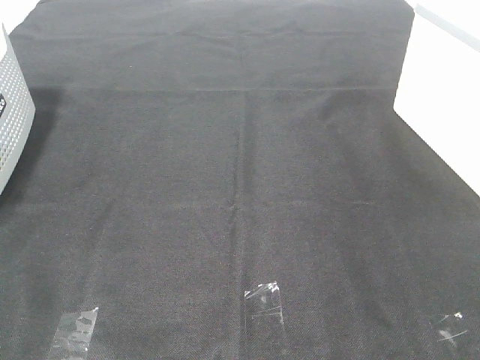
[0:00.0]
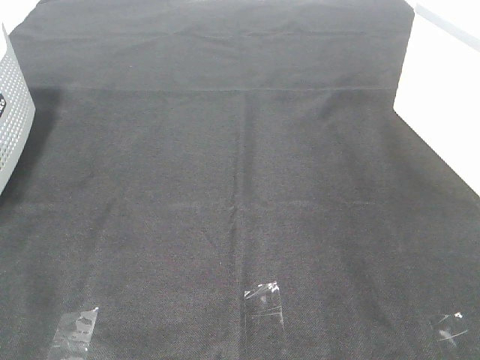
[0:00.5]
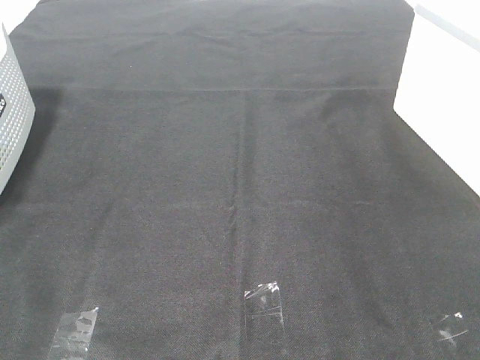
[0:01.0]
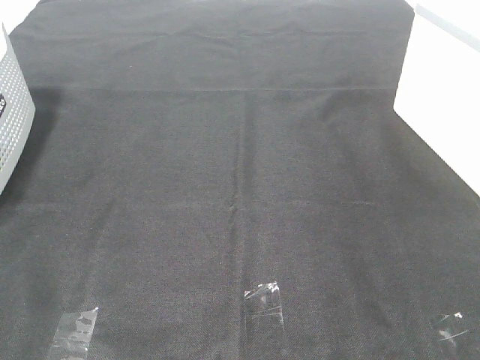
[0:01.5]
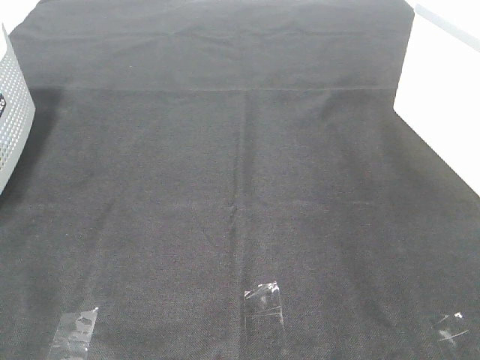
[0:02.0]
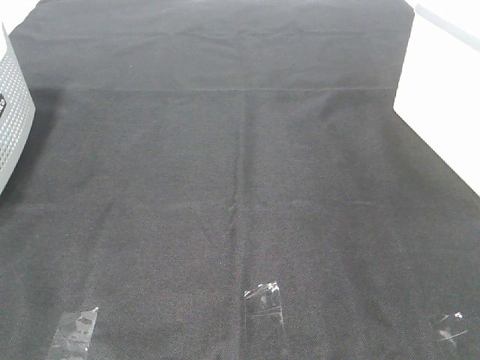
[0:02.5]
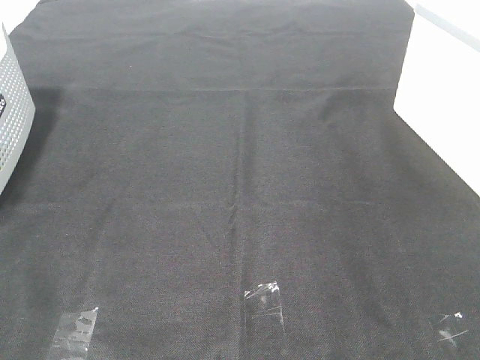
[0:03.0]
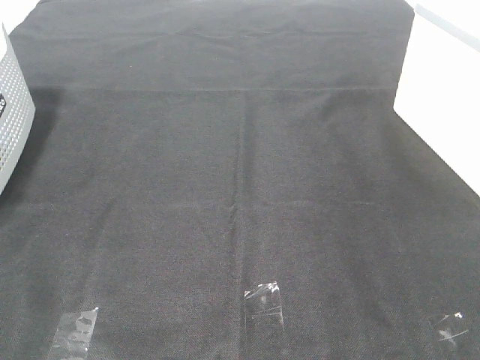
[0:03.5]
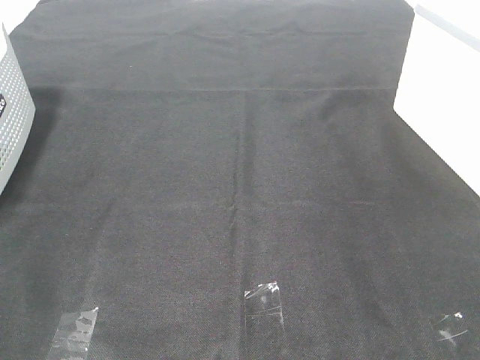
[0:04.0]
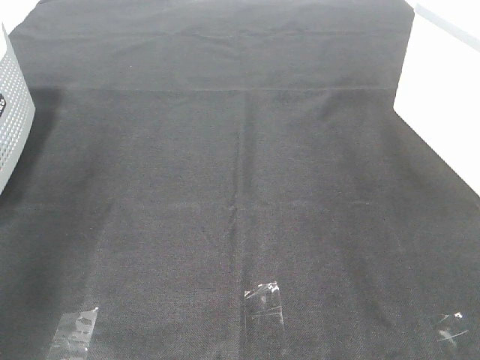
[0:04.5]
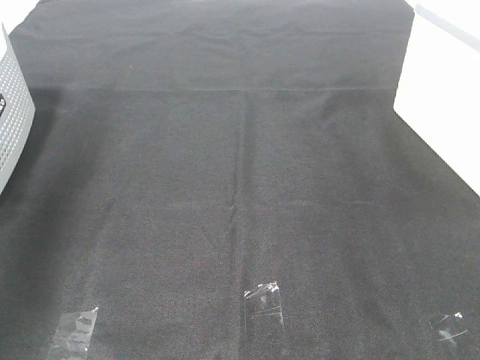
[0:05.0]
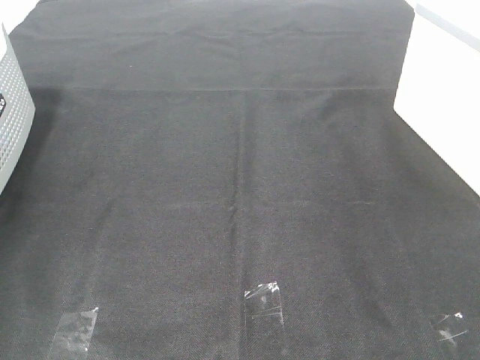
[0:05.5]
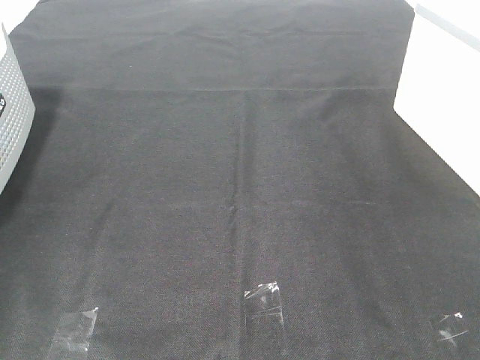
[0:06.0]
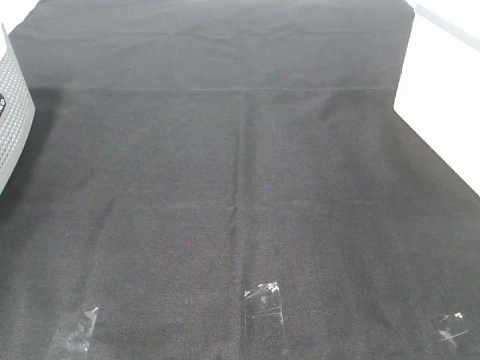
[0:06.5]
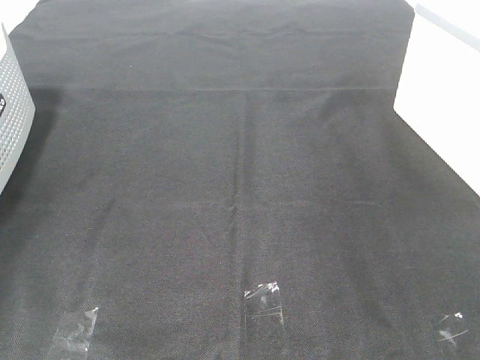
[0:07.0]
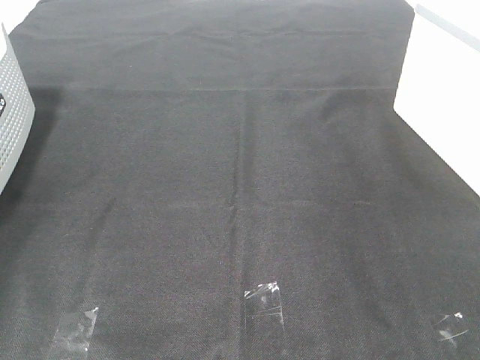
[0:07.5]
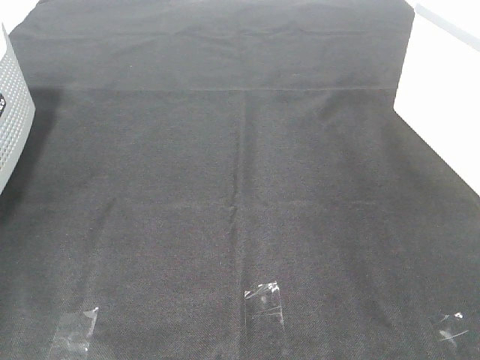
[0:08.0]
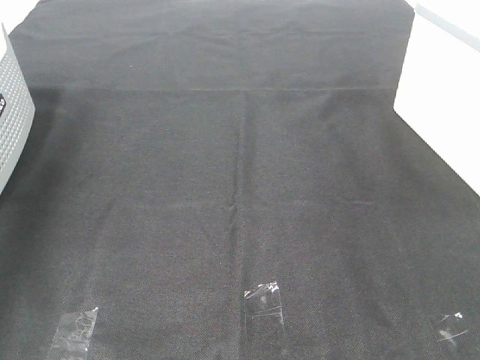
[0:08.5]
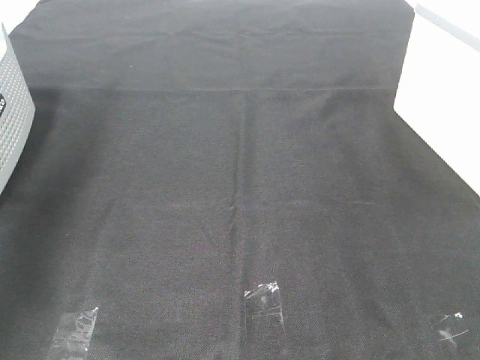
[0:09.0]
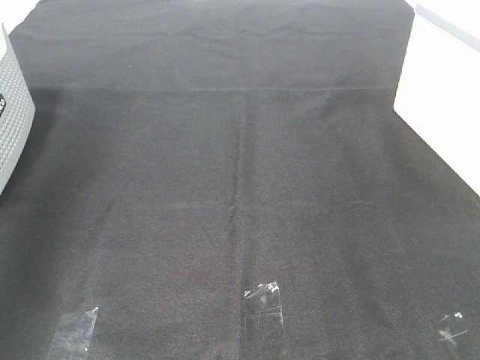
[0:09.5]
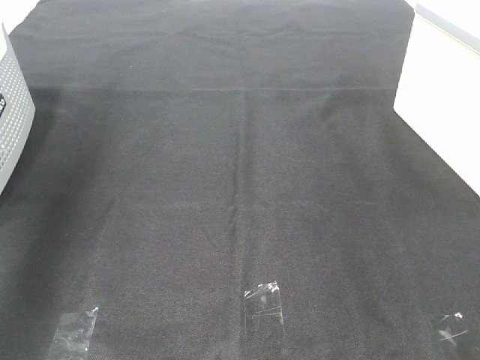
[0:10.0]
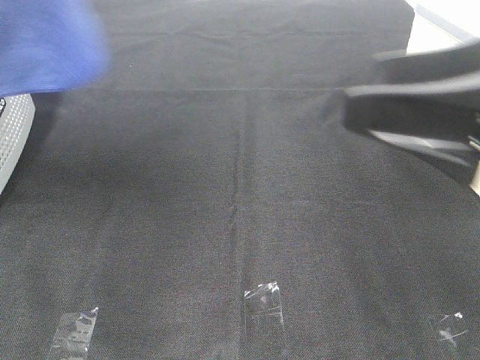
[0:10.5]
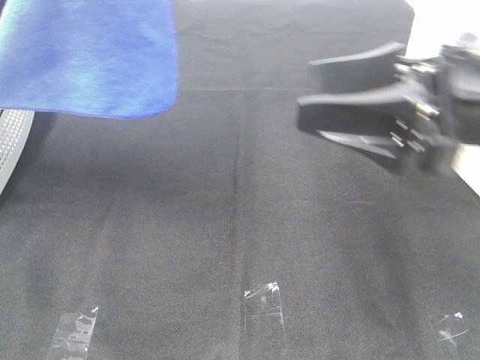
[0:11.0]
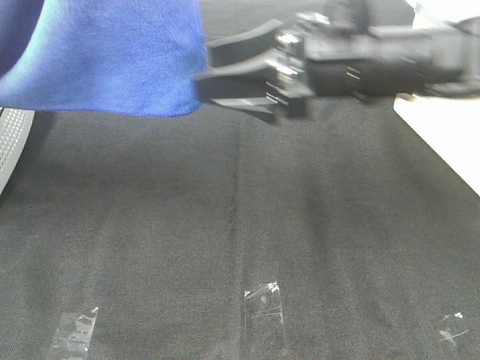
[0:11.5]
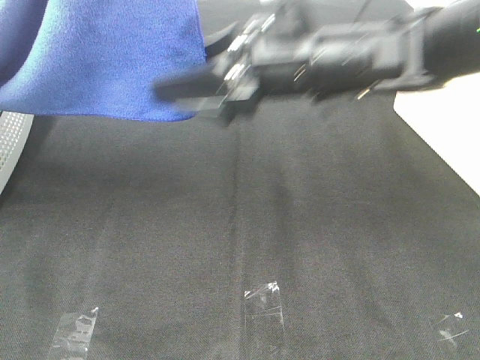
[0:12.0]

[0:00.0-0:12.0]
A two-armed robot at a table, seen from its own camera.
Task of the whole recording: Remove the towel and place it.
0:00.0 to 0:02.0: Both grippers stay about where they are.
0:08.0 to 0:10.0: The left gripper is displaced upward, backward and to the right by about 35 cm.
0:10.0 to 0:12.0: The left gripper shifts some 20 cm to the right, while the right gripper is displaced forward and to the left by approximately 30 cm.

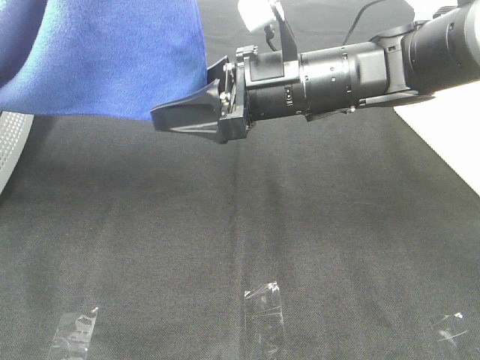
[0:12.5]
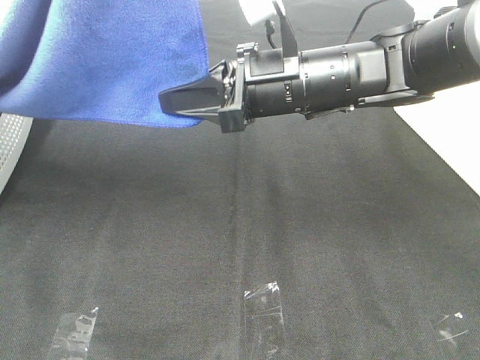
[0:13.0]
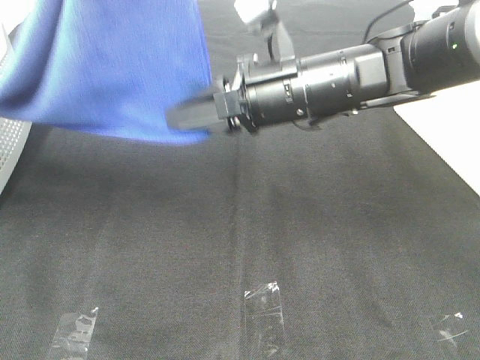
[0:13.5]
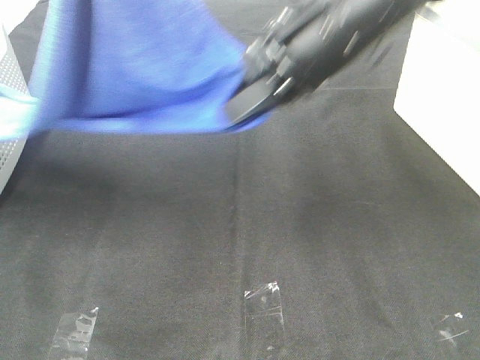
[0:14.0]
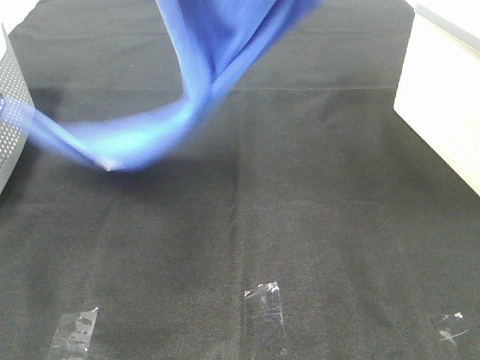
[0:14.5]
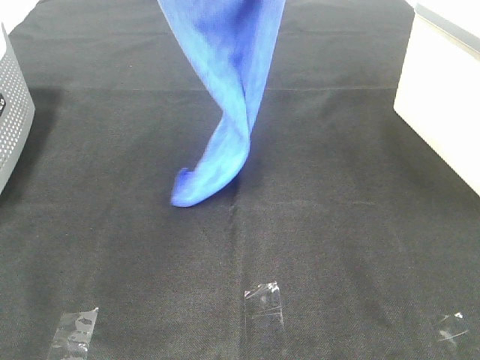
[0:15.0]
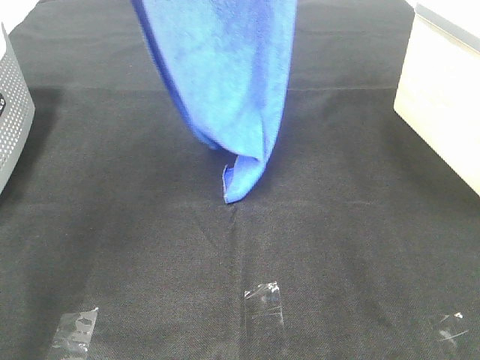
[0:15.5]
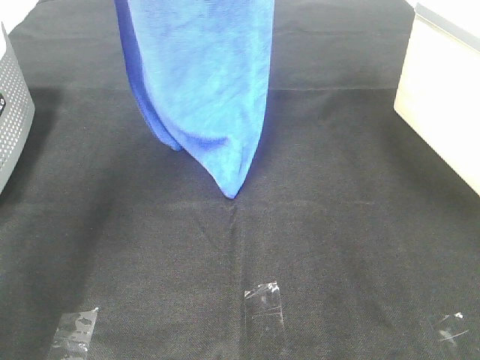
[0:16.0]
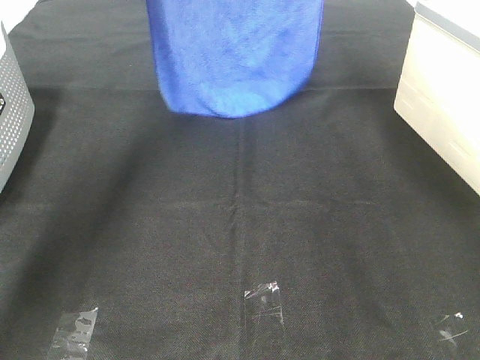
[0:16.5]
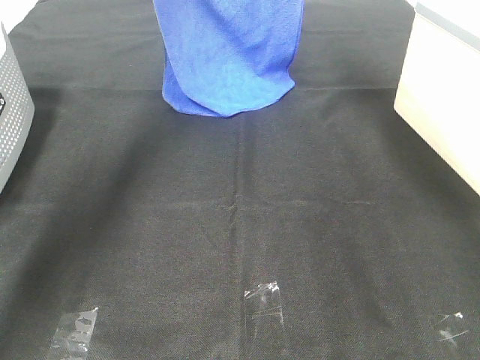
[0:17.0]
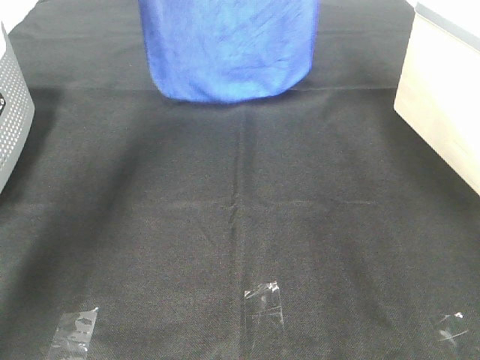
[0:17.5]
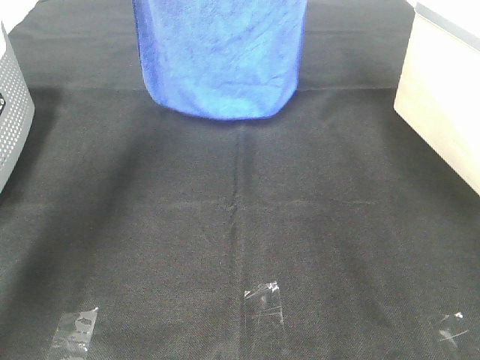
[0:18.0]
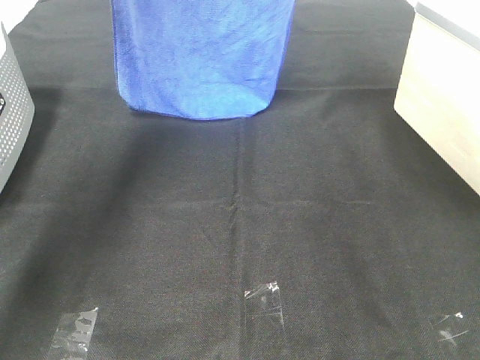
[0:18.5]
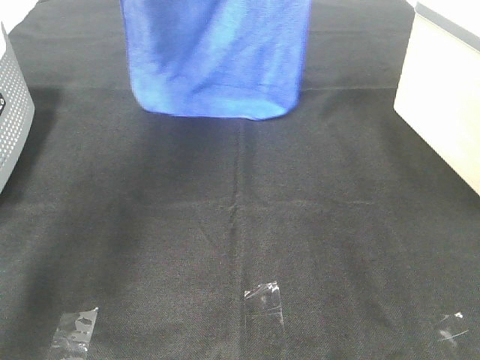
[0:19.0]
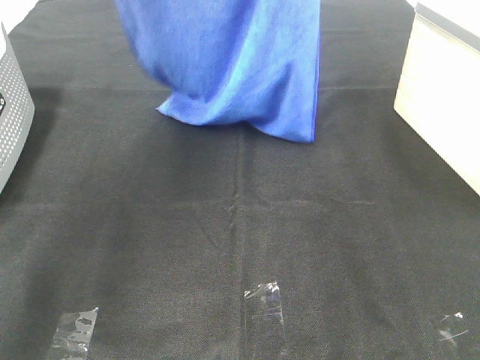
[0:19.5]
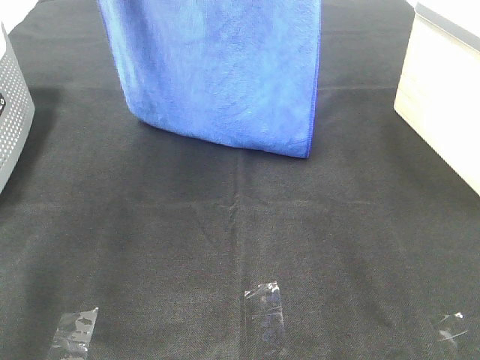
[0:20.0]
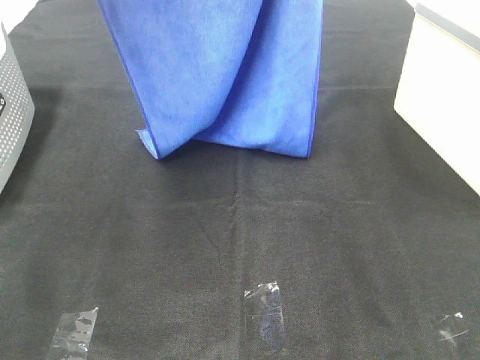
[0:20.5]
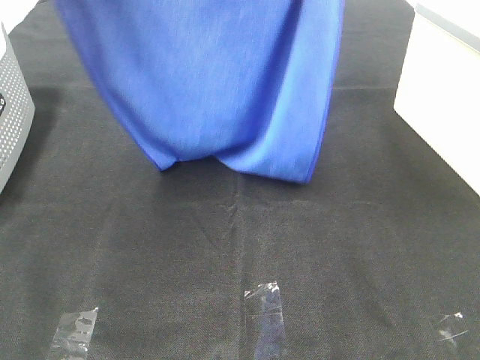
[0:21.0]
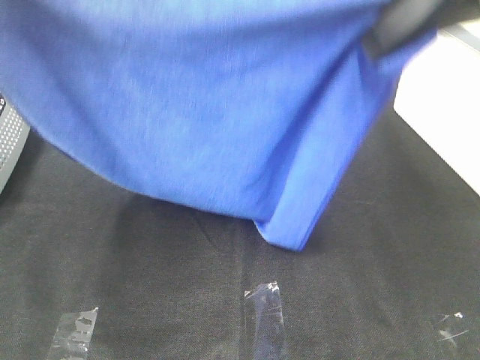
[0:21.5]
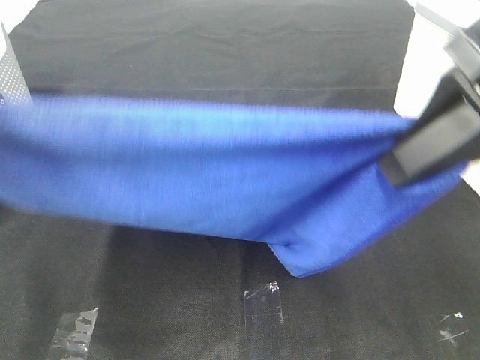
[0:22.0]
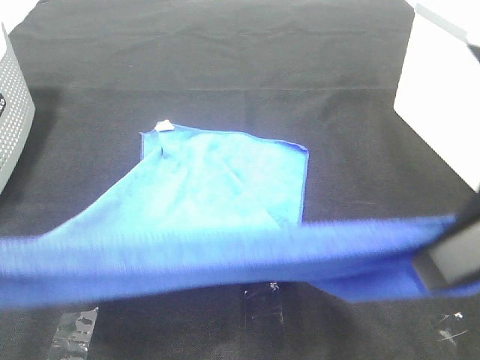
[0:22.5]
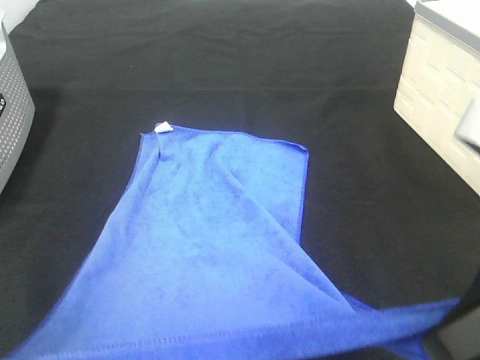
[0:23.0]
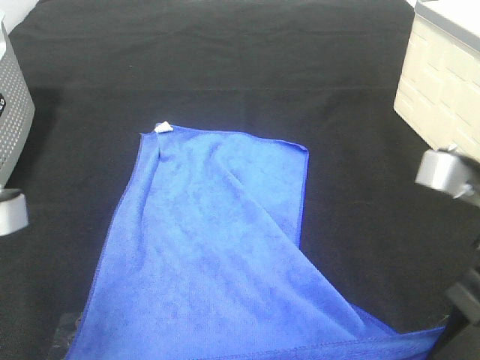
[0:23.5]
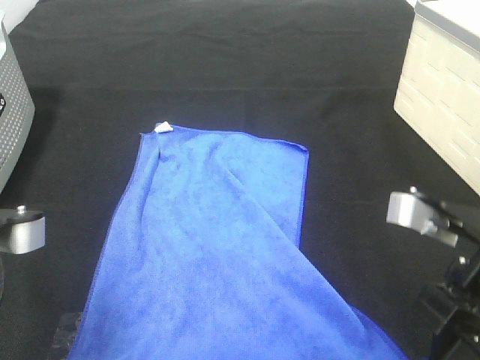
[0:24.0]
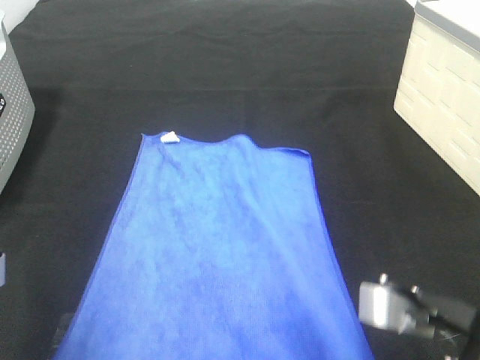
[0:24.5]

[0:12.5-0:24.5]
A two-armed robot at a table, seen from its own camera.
Task of the whole recording: Remove the towel and place it.
Step, 0:13.5 to 0:23.0: Left hand: spread the blue towel flat on the table.
Step, 0:13.5 to 0:23.0: Right hand: spread the blue towel flat on the table.
0:12.5 to 0:14.5: The left gripper is displaced forward by approximately 5 cm, while the right gripper shifts some 25 cm upward, and closes its fingers.
0:14.5 to 0:16.5: The two grippers go roughly 20 cm forward.
0:16.5 to 0:18.5: The grippers stay close to where they were, moving slightly.
0:18.5 to 0:20.5: Both grippers move backward, roughly 15 cm.
0:20.5 to 0:22.5: The left gripper goes roughly 30 cm backward and downward. The right gripper travels downward and backward by roughly 30 cm.
0:22.5 to 0:24.5: The grippers both shift downward by about 10 cm.

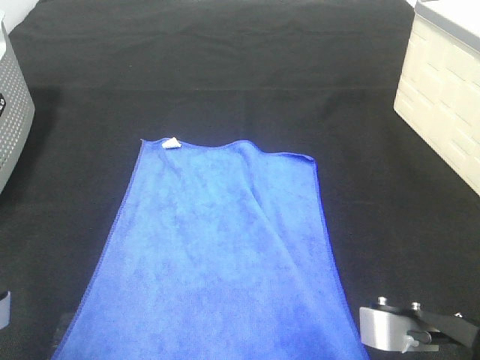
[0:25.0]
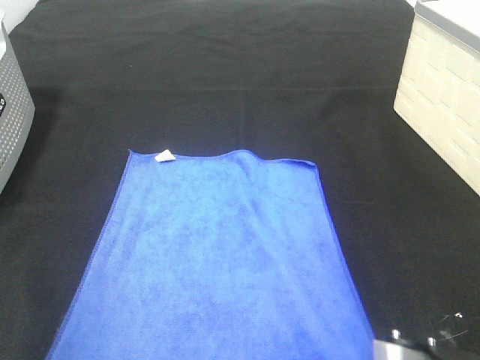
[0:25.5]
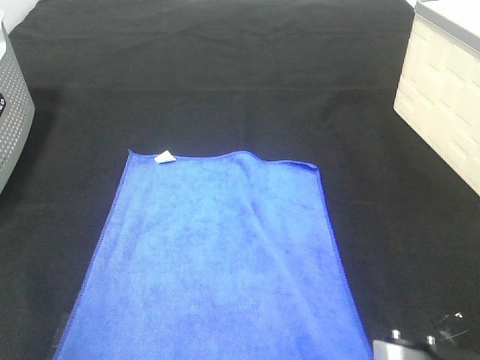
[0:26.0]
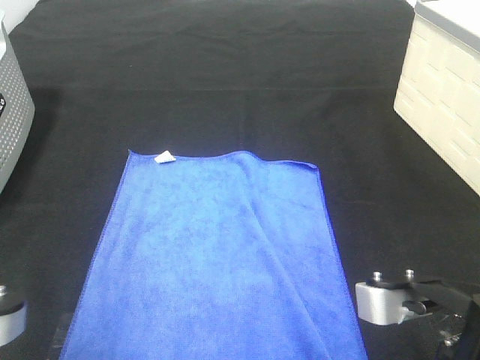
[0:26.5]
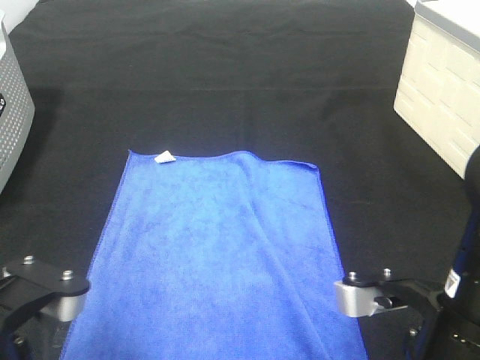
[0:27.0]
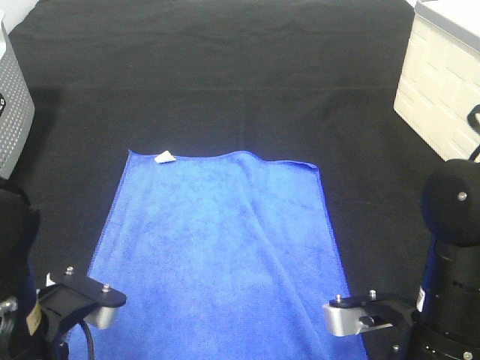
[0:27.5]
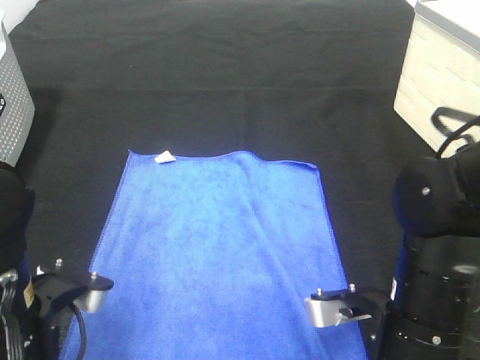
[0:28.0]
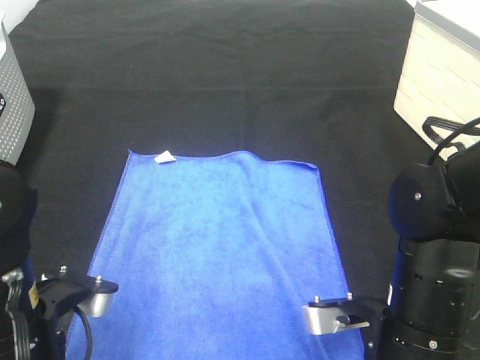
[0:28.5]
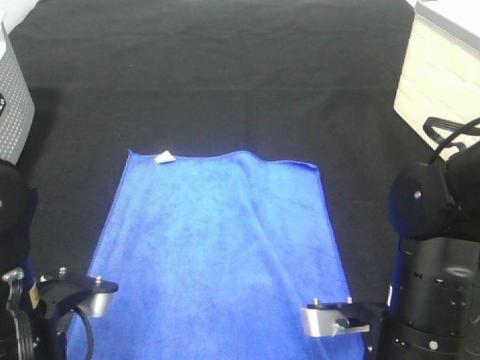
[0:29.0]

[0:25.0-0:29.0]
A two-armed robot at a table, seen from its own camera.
Task of the whole recording: Remove the towel and place it.
0:25.0 to 0:27.0: The left gripper shifts by some 5 cm.
0:27.0 to 0:29.0: The right gripper changes place by approximately 5 cm, and opens its fingers, while the left gripper shifts by some 5 cm, and opens up.
